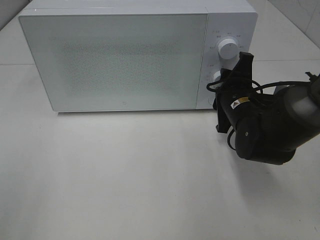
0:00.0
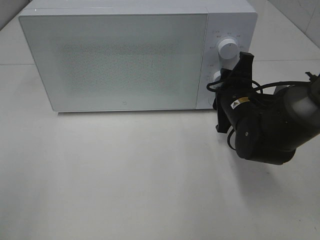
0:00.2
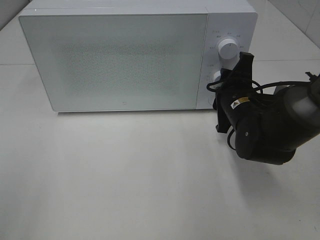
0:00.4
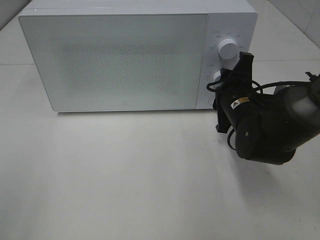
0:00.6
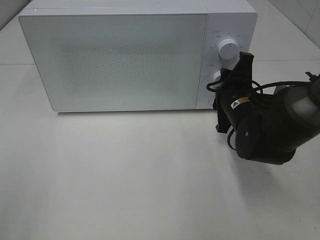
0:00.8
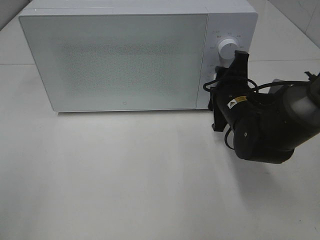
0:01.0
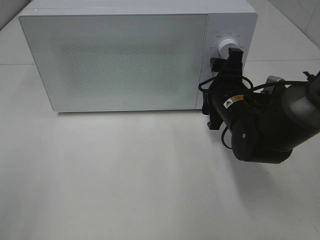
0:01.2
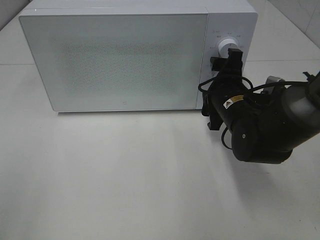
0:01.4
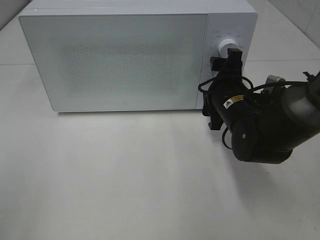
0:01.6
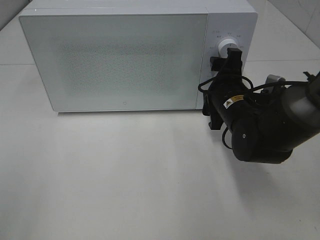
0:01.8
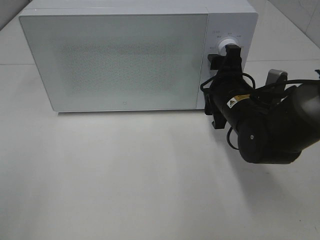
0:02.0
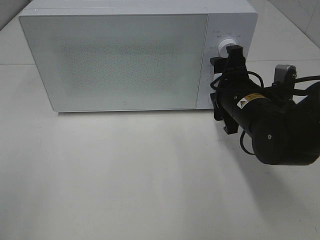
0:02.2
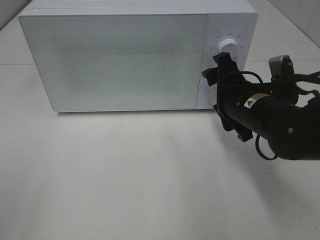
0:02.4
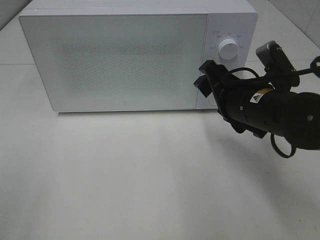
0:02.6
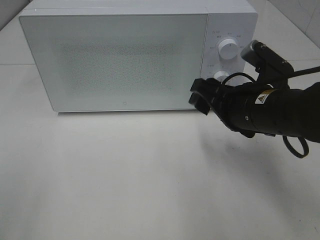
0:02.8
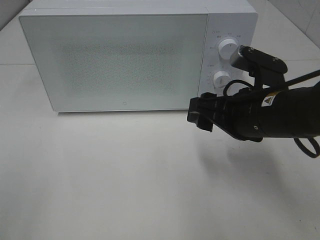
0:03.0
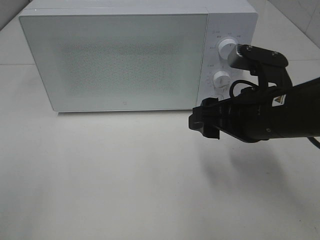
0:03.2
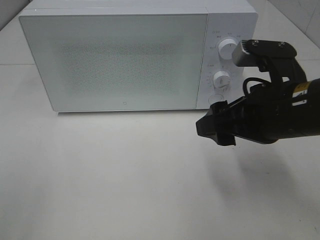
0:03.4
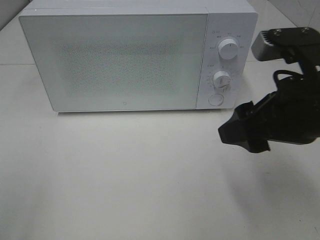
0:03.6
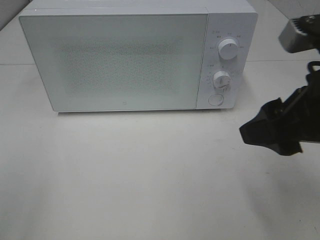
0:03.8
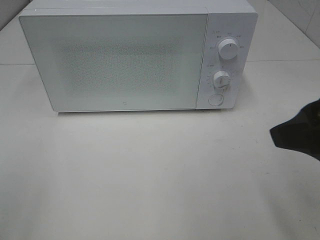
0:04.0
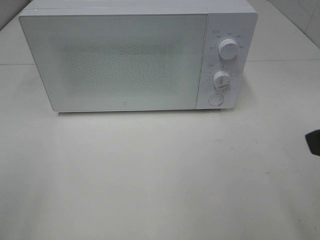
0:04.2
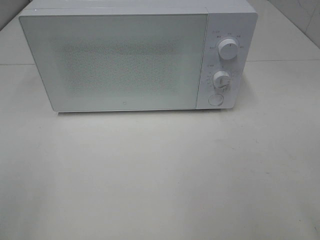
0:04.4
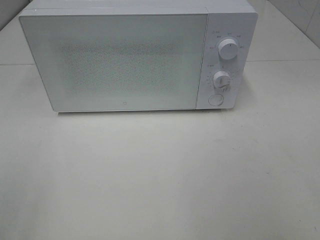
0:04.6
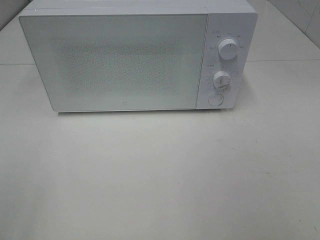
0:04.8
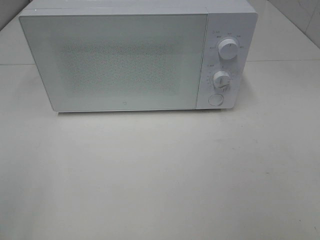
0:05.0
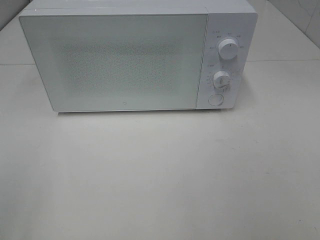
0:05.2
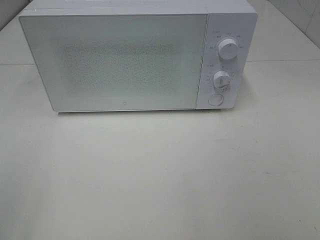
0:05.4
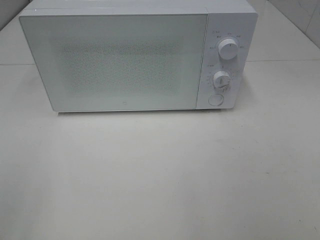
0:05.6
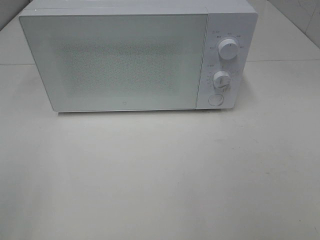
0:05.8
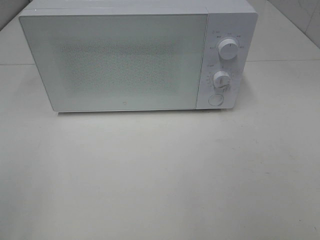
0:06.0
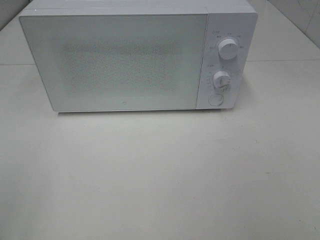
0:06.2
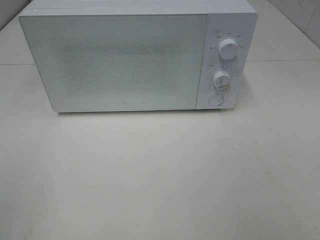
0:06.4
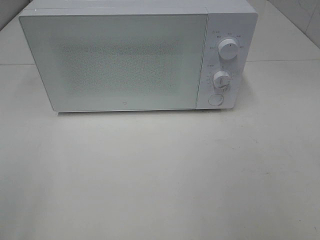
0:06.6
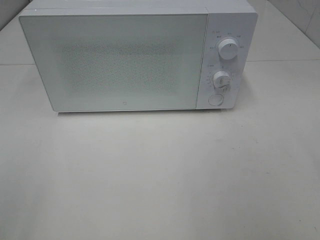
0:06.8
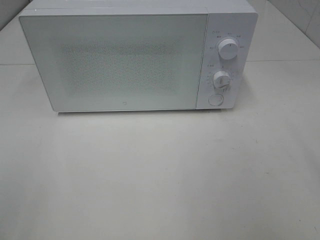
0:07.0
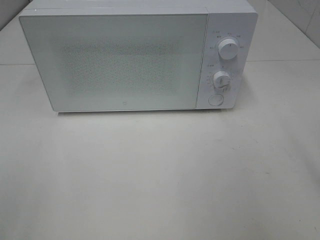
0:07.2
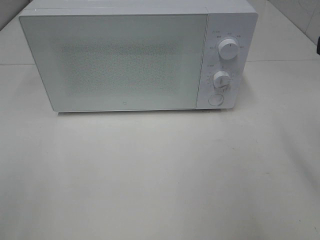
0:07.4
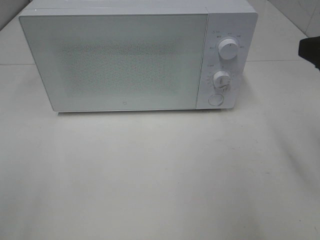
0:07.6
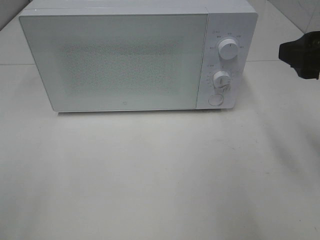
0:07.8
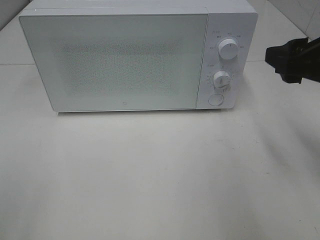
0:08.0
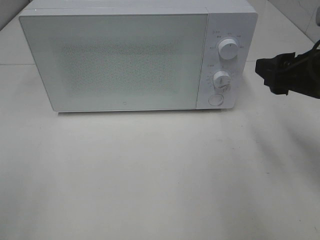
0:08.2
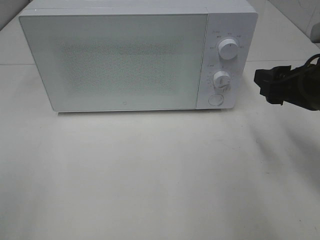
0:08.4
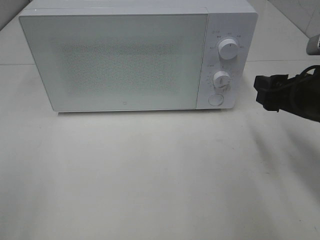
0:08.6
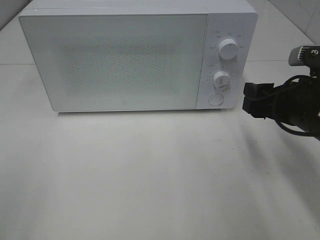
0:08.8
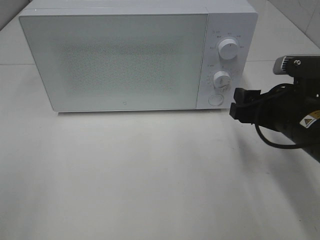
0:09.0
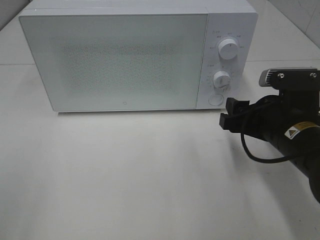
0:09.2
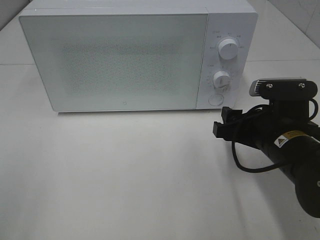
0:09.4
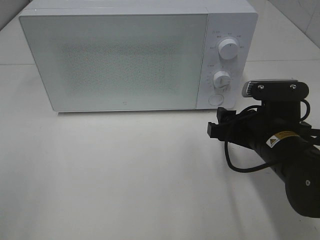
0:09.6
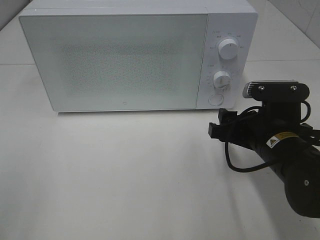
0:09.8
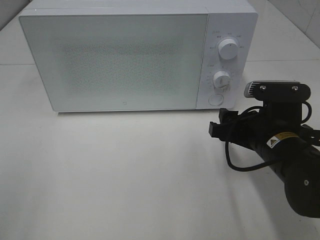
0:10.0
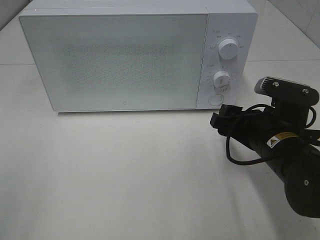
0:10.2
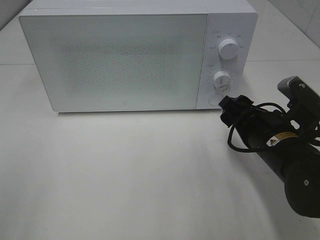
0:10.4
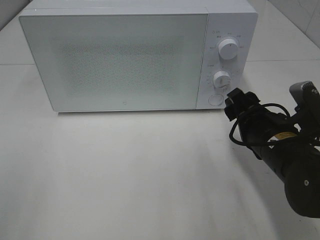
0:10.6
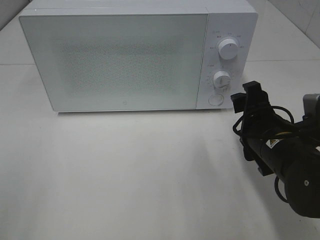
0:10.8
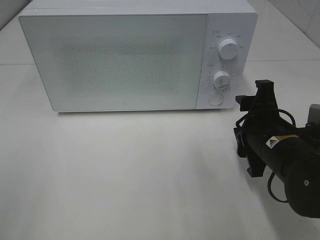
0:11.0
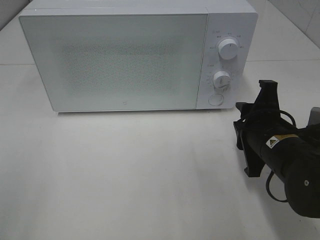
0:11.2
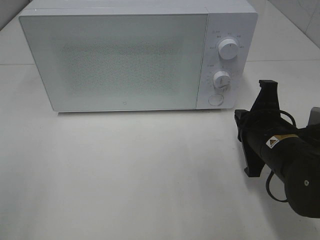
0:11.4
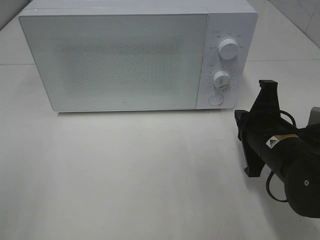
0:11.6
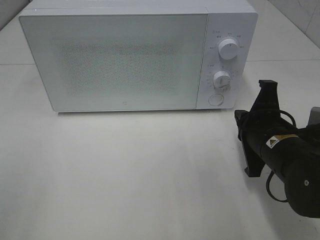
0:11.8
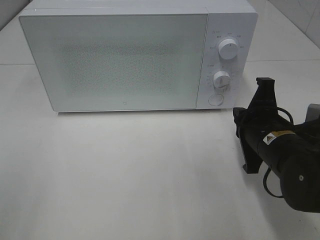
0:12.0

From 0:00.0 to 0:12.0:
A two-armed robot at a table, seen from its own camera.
Task of the whole recording: Heat Sandwich.
From 0:00.0 to 0:01.6: The right gripper opens.
From 0:01.6 to 0:03.0: The right gripper heads backward and upward, covering approximately 10 cm.
From 0:03.0 to 0:04.4: The right gripper is displaced backward, upward and to the right by some 20 cm.
From 0:06.0 to 0:07.6: The right gripper goes some 20 cm forward.
From 0:07.6 to 0:09.0: The right gripper shifts some 15 cm downward.
From 0:10.4 to 0:12.0: The right gripper closes up.

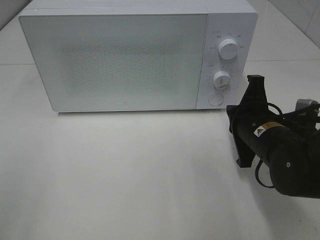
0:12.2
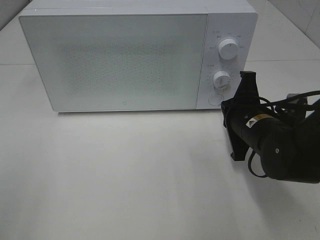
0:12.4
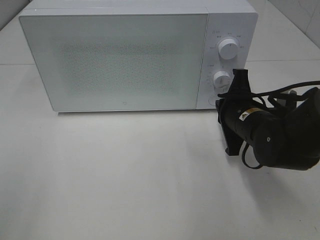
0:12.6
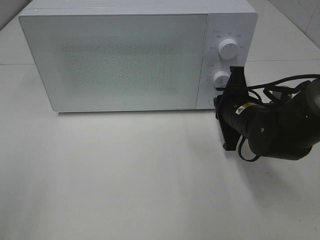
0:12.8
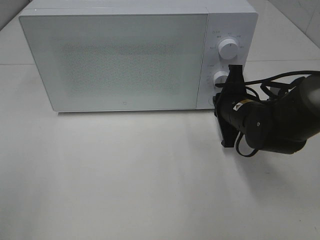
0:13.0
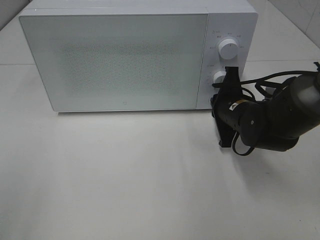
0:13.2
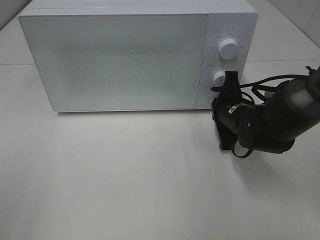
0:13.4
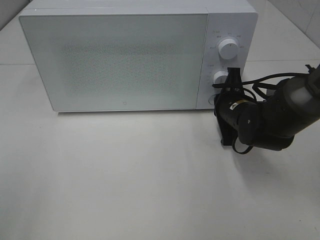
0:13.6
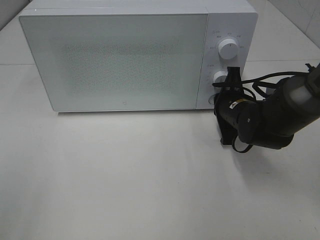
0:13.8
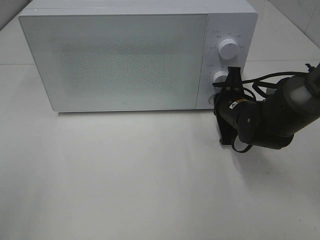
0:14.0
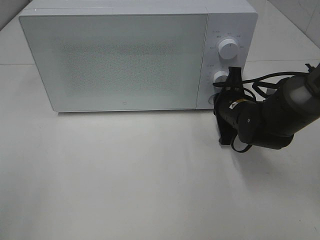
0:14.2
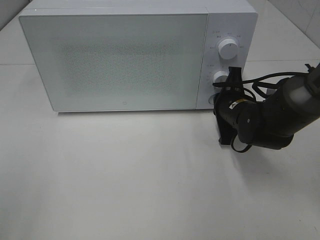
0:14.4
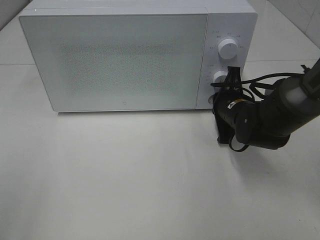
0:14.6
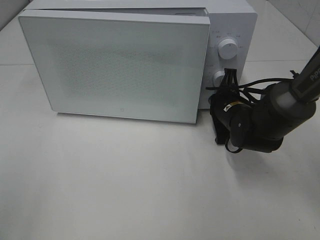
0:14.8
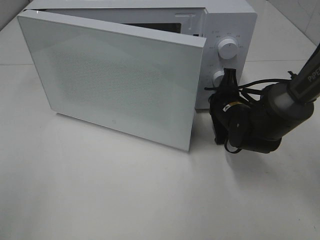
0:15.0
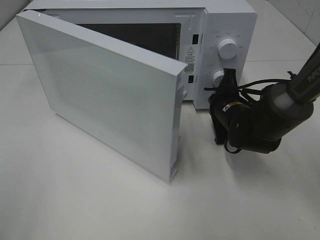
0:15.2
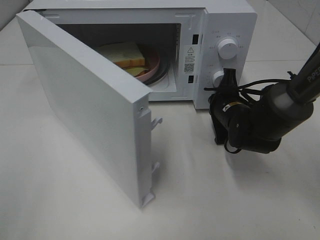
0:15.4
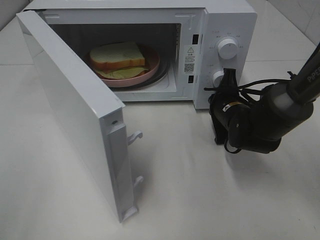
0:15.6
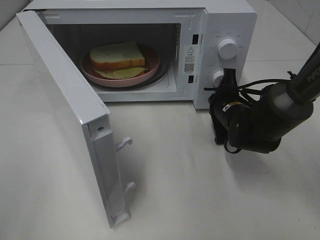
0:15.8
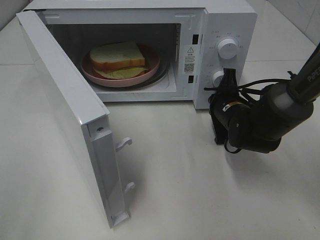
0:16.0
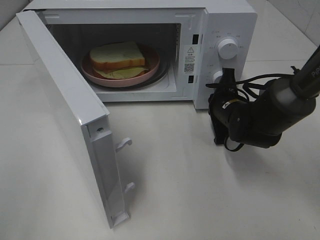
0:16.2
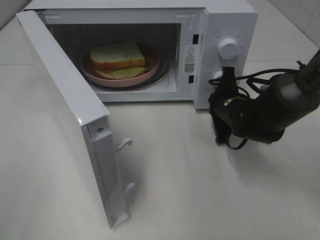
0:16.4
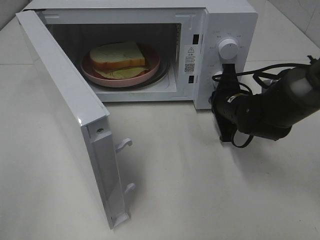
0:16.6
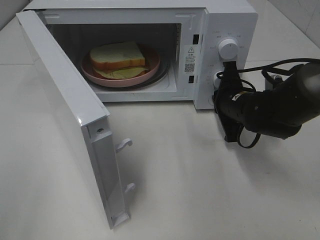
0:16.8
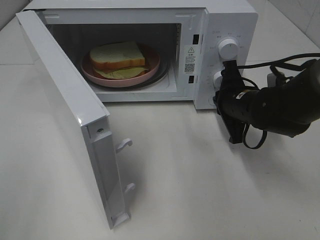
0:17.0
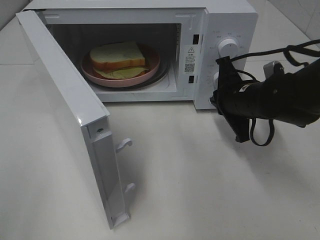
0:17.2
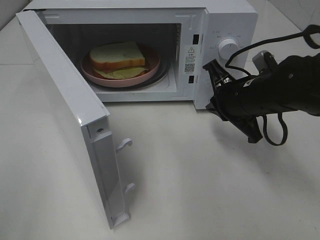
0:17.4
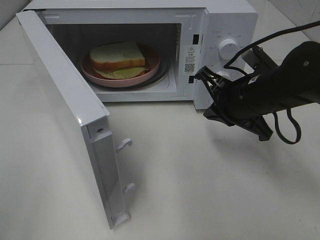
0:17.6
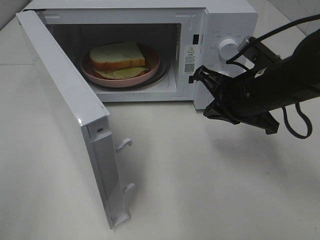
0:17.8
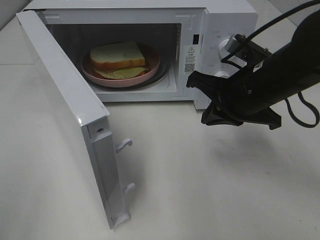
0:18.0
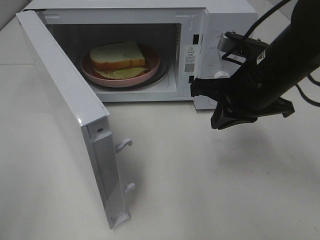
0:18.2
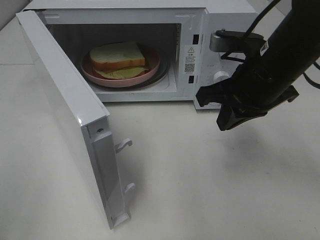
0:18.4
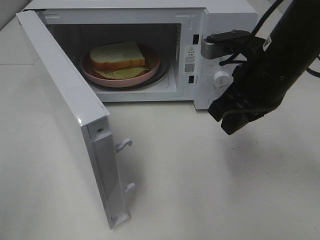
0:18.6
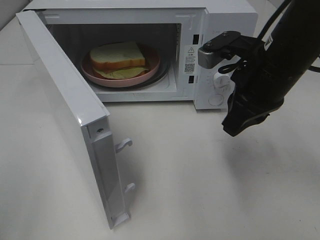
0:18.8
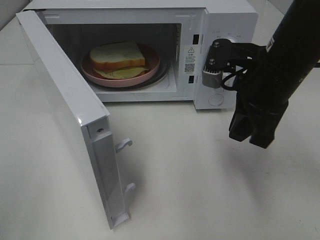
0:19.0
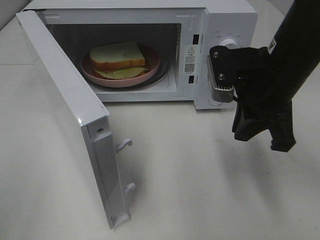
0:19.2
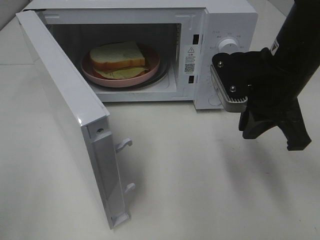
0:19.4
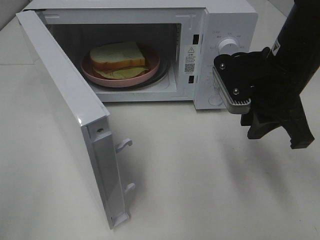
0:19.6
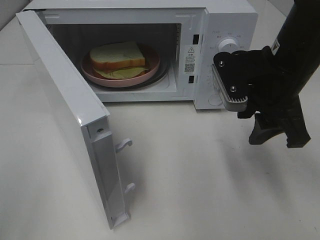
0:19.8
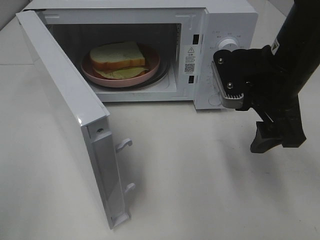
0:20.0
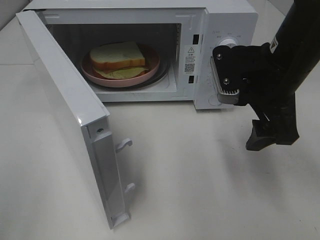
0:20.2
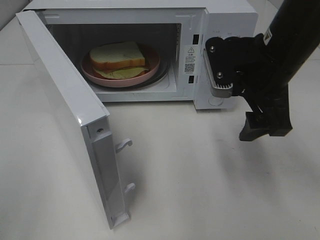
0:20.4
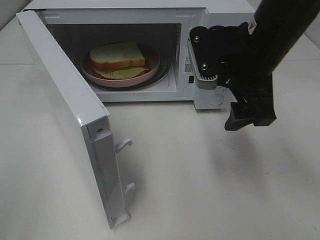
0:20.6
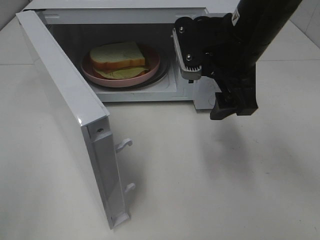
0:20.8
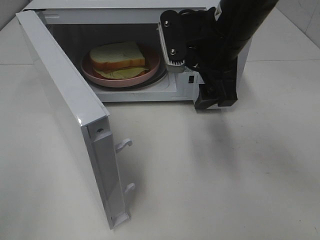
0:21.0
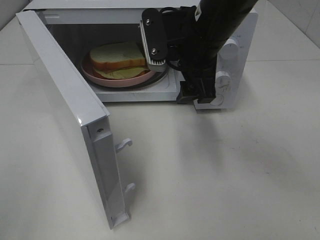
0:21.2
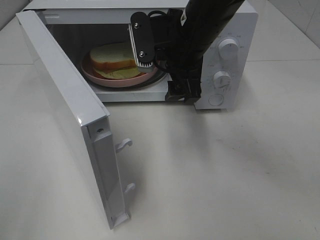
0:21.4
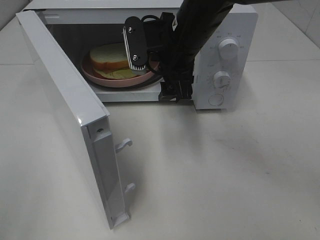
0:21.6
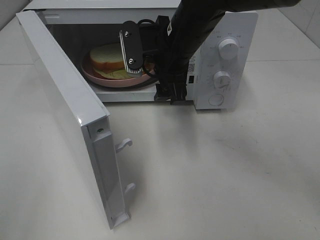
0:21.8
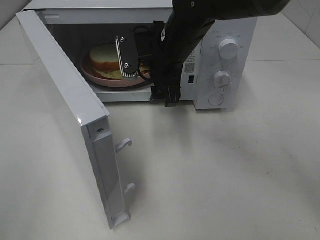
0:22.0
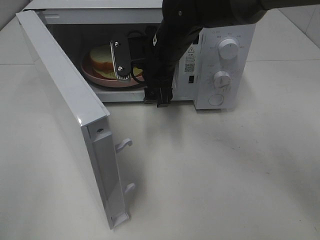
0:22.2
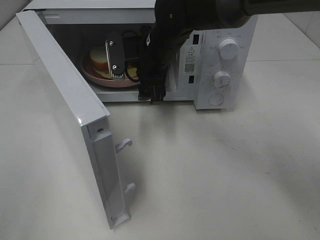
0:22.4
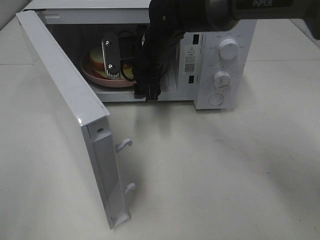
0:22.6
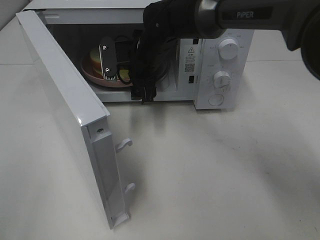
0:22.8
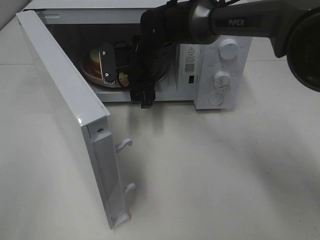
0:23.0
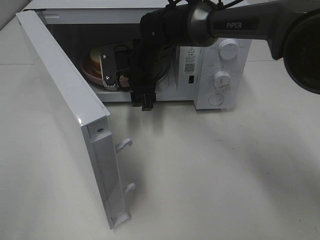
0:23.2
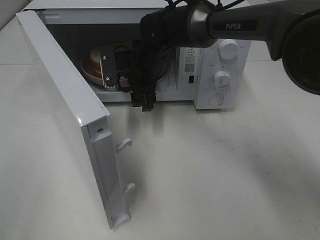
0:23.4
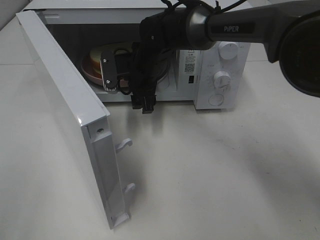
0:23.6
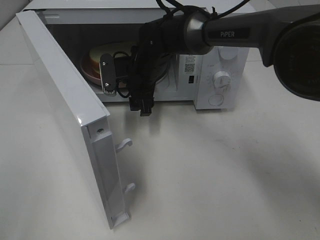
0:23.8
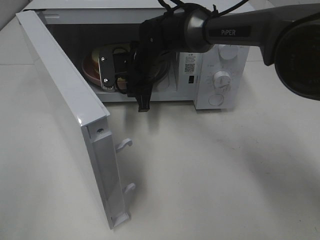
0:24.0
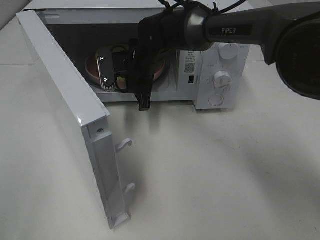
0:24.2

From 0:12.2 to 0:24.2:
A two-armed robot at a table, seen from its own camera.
Task of the whole recording: Heat Sandwich.
Step, from 0:12.2 to 0:17.0: Right hand: press the switch.
From 0:12.2 to 0:13.8: The right gripper moves forward, about 10 cm.
From 0:16.6 to 0:18.2: The right gripper is displaced upward and backward by approximately 15 cm.
From 0:18.2 to 0:19.8: The right gripper opens its fingers.
From 0:19.8 to 0:21.2: The right gripper heads to the left and forward, covering some 10 cm.
From 0:21.2 to 0:22.6: The right gripper moves forward, downward and to the left, roughly 15 cm.
From 0:22.6 to 0:24.2: The right gripper closes its fingers.
